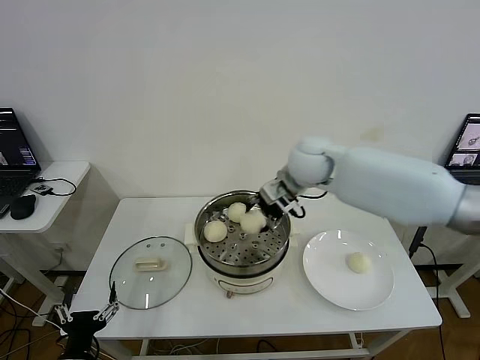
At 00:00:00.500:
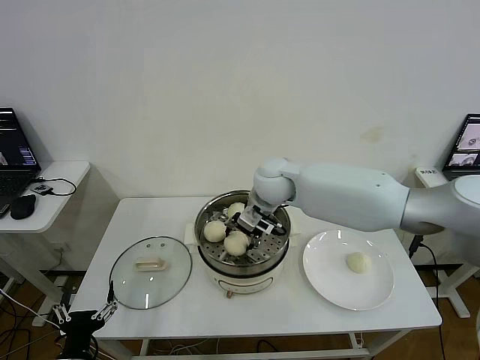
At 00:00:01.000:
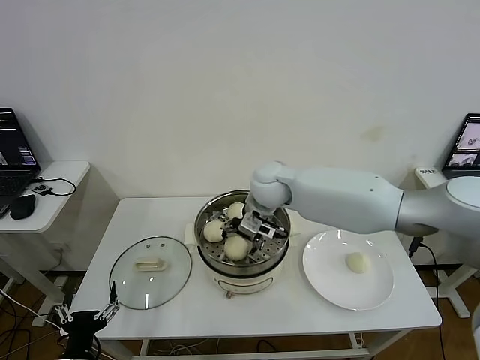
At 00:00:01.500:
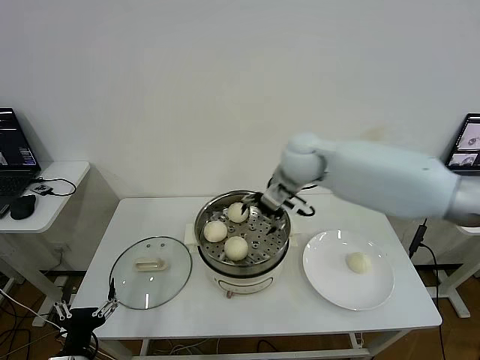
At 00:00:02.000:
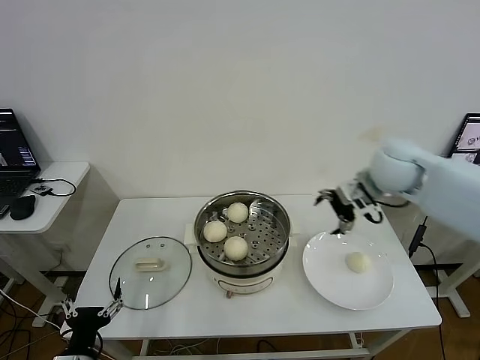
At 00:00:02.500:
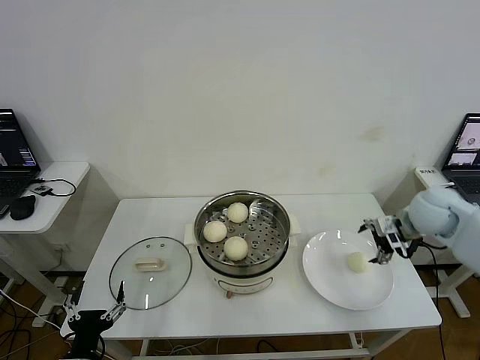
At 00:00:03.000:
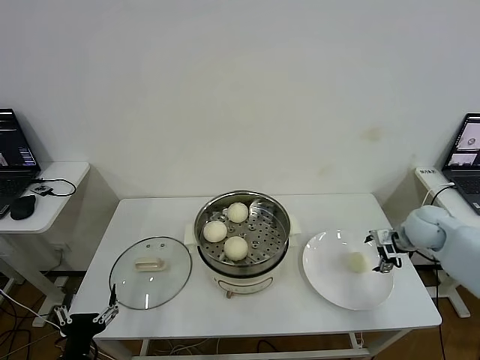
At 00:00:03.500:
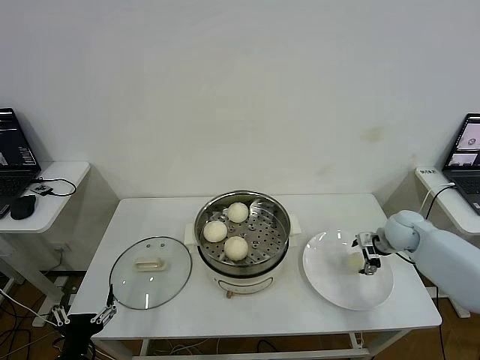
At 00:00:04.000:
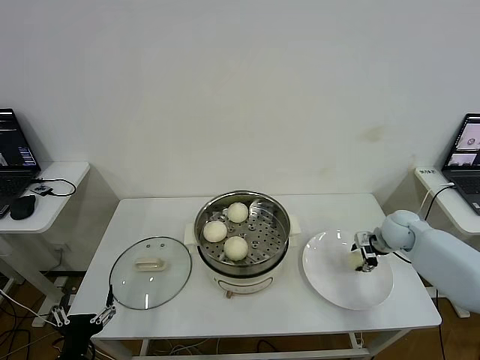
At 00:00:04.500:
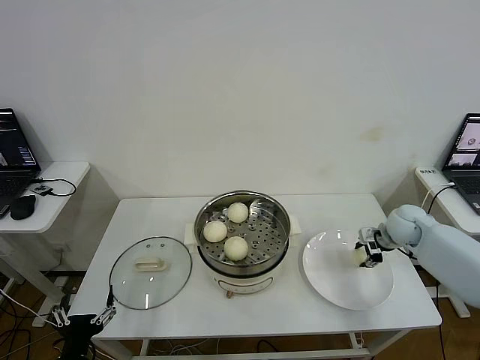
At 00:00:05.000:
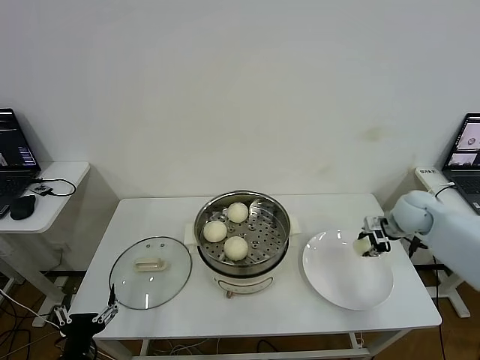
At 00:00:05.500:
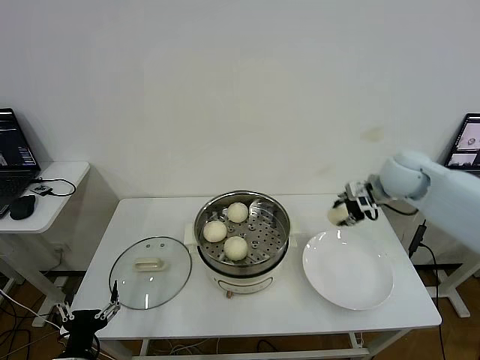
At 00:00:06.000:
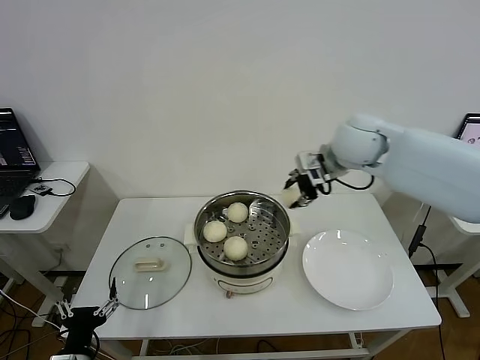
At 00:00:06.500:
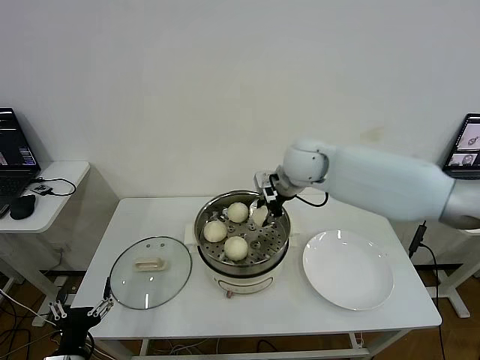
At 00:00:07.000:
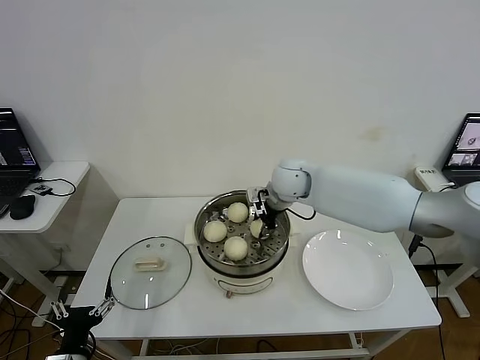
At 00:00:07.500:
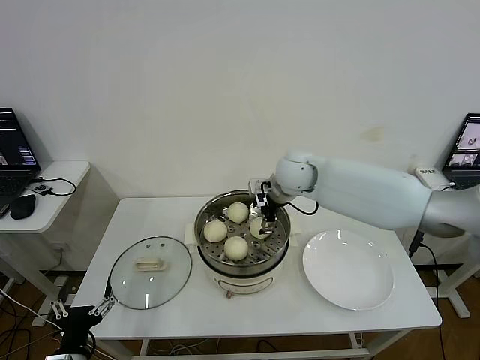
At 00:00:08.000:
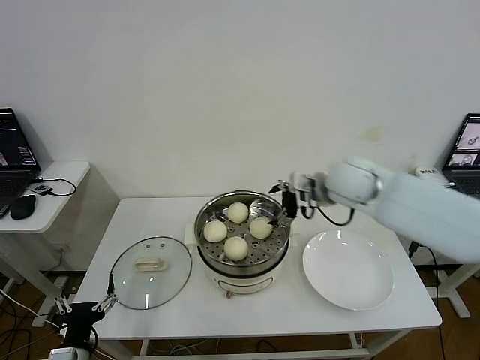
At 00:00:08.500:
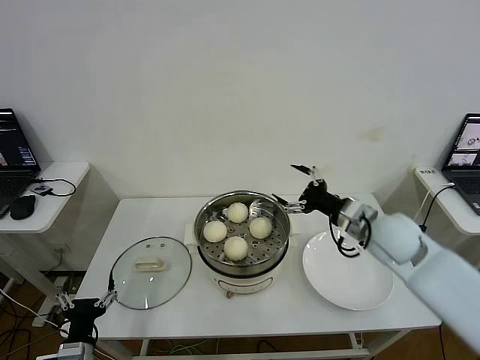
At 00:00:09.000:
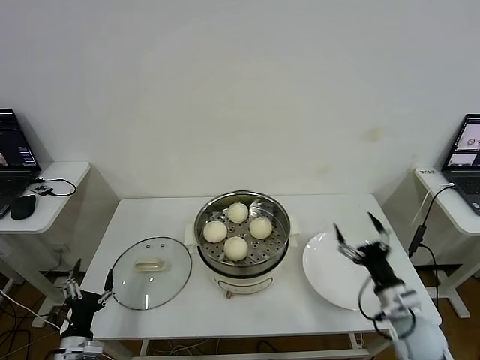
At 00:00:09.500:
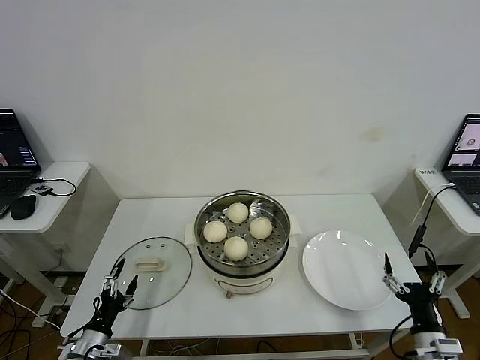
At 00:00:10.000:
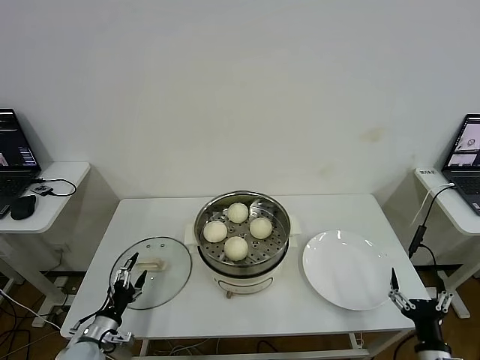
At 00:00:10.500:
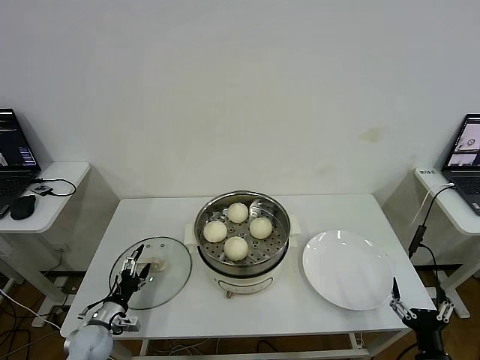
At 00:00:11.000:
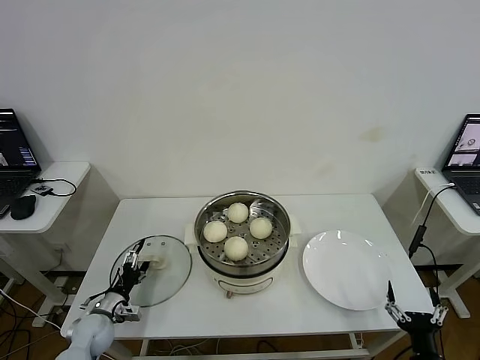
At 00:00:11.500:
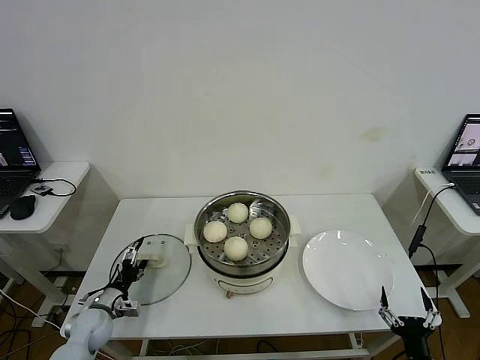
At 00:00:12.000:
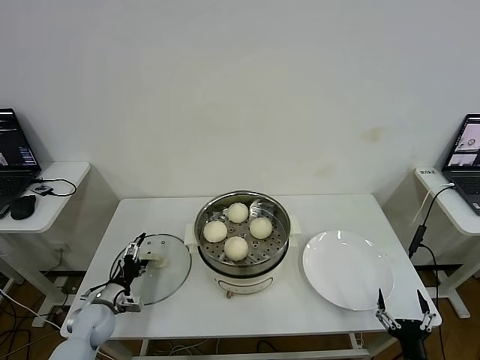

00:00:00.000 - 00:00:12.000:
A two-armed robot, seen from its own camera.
Step, 00:00:01.500 - 00:00:04.000: Grasp the baozi in the plate with right gripper.
Step, 00:00:04.500 - 00:00:07.500: Place the baozi on the steamer with right gripper.
00:00:00.000 - 00:00:02.000: The right gripper shifts about 20 cm to the right, and opens up.
00:00:02.000 - 00:00:04.000: The right gripper heads downward and to the right, covering roughly 20 cm, and closes up.
00:00:04.000 - 00:00:06.000: The right gripper is displaced upward and to the left by roughly 30 cm, and closes.
00:00:06.000 - 00:00:08.000: The right gripper moves downward, roughly 5 cm, and opens up.
00:00:08.000 - 00:00:10.000: The left gripper goes about 15 cm forward and downward, while the right gripper moves backward, downward and to the right, about 50 cm.
00:00:10.000 - 00:00:12.000: The left gripper shifts roughly 10 cm forward. The right gripper moves approximately 5 cm.

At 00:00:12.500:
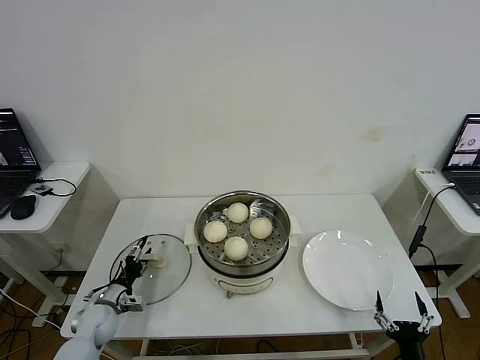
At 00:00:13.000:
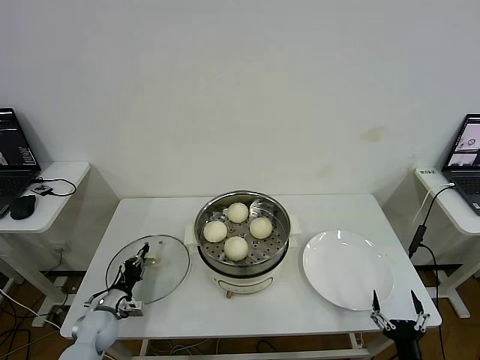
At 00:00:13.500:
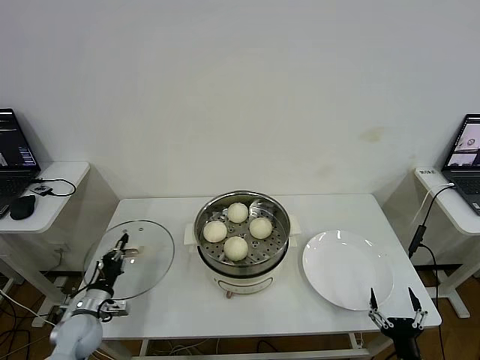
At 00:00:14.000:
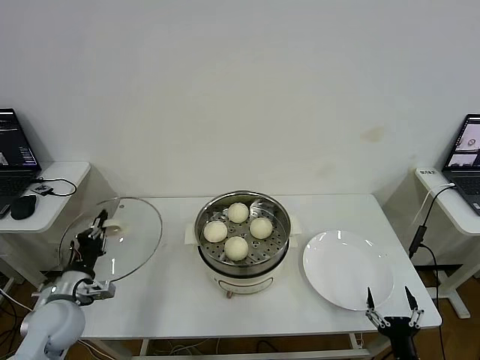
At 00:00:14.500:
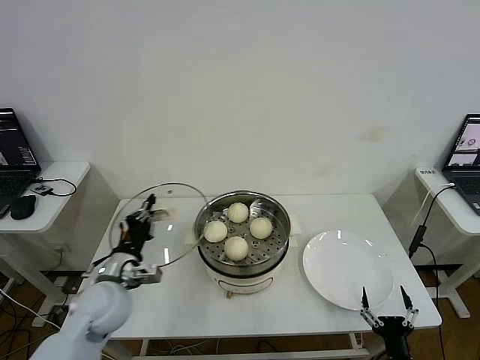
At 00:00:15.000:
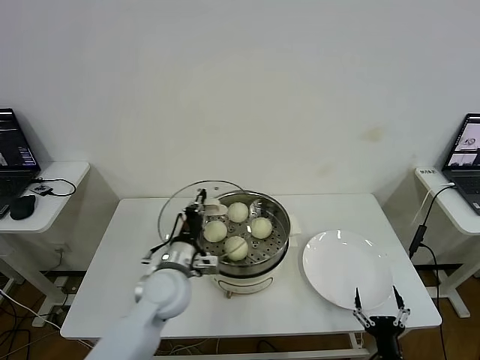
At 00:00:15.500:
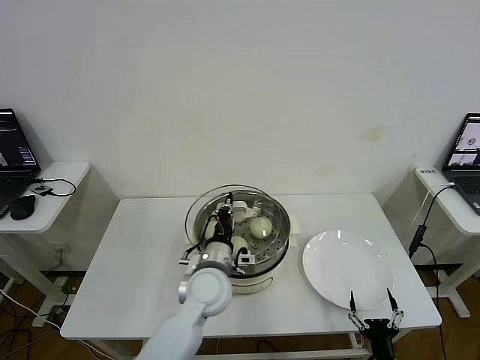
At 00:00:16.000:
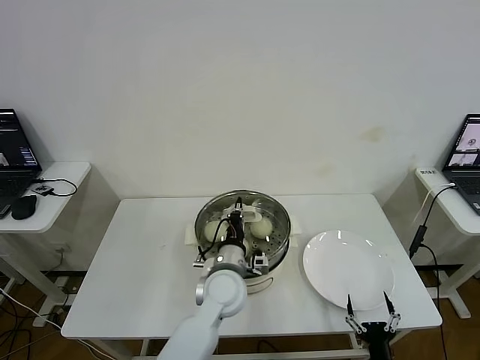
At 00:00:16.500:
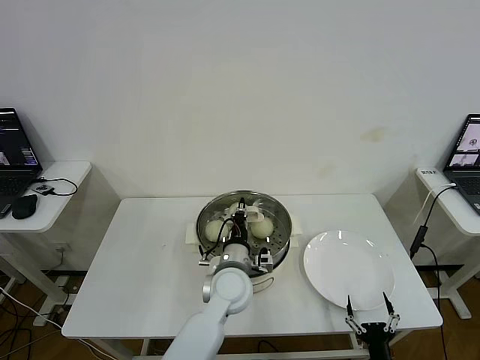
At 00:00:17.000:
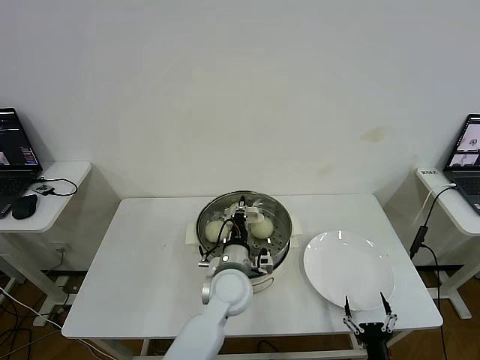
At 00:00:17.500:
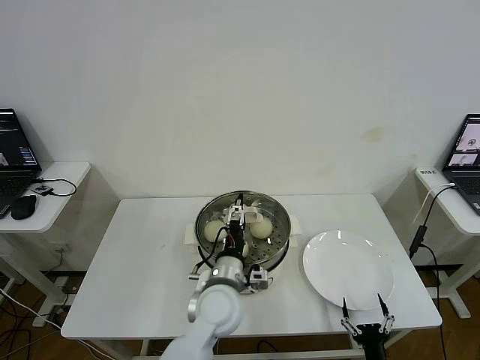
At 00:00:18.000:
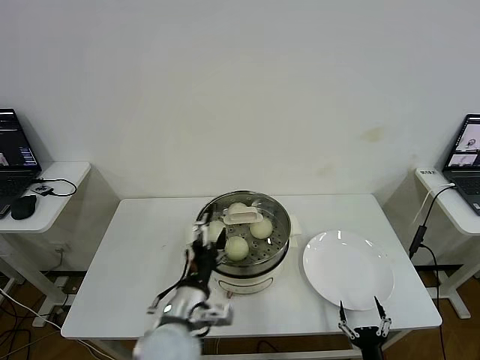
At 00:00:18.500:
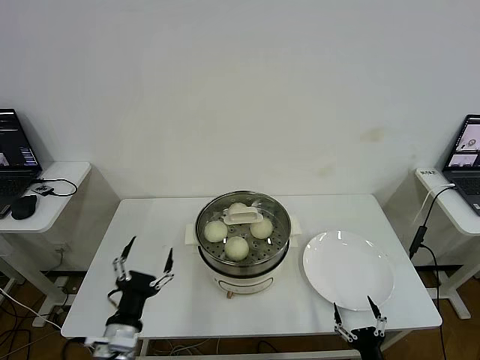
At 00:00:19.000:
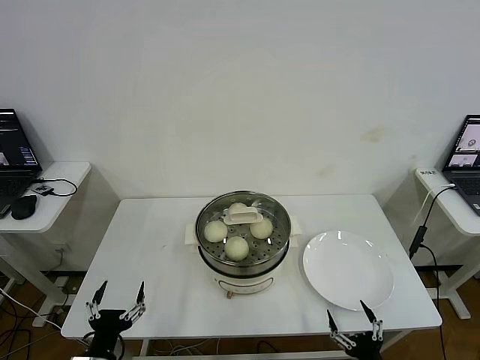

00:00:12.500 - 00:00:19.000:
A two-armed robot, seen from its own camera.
Step, 00:00:13.500 - 00:00:17.000: Place the pot lid on the steamer with left gripper.
00:00:12.500 - 00:00:14.500: The left gripper goes some 20 cm upward and to the right, and closes.
00:00:14.500 - 00:00:17.000: The left gripper moves to the right, about 25 cm.
00:00:17.000 - 00:00:19.000: The left gripper travels to the left and backward by roughly 35 cm, and opens its fingers; the right gripper changes place by about 5 cm.
